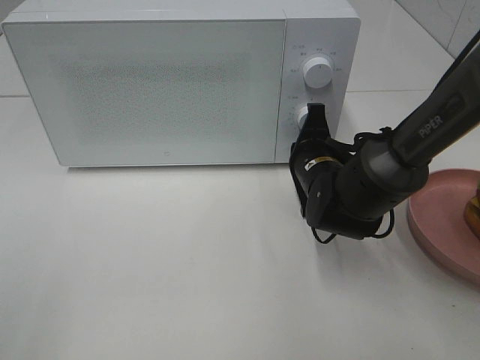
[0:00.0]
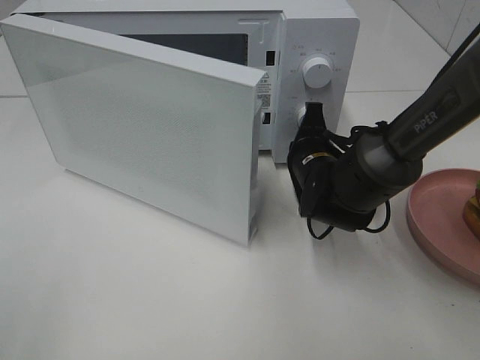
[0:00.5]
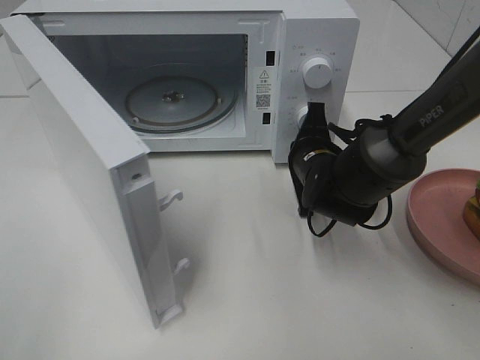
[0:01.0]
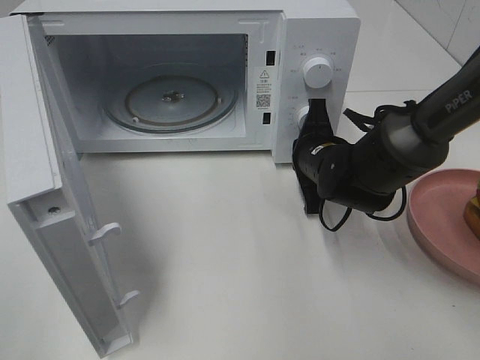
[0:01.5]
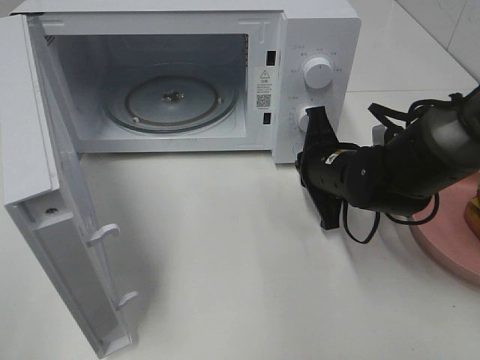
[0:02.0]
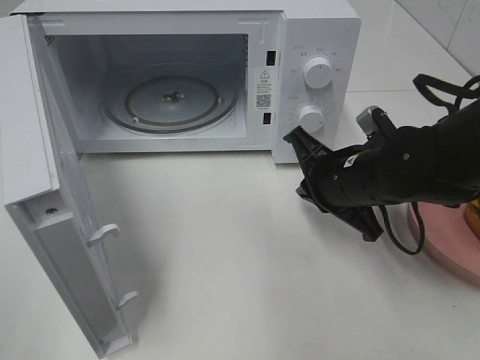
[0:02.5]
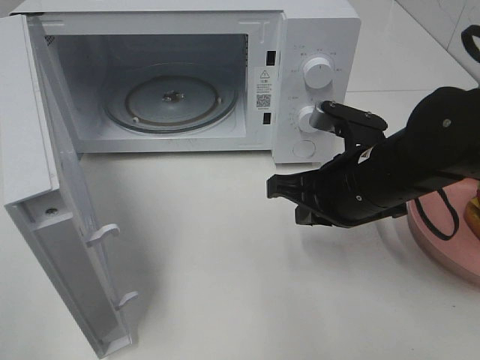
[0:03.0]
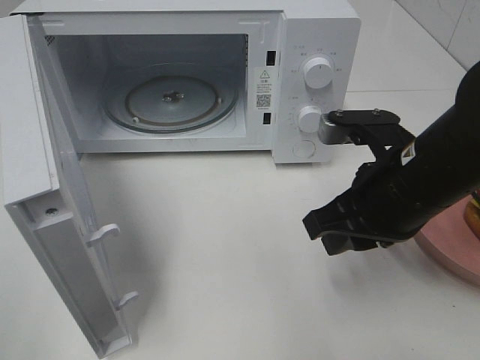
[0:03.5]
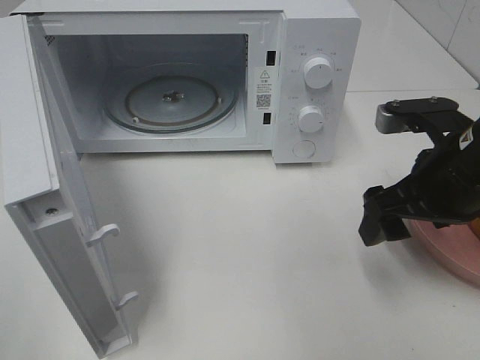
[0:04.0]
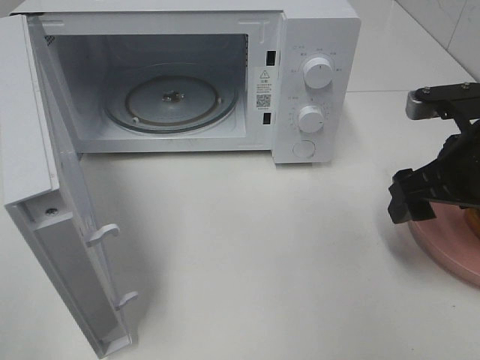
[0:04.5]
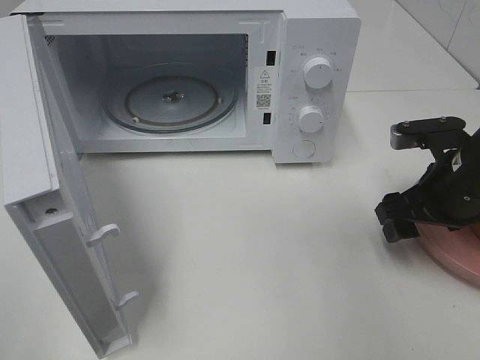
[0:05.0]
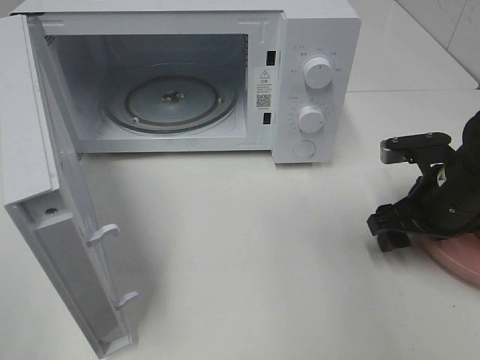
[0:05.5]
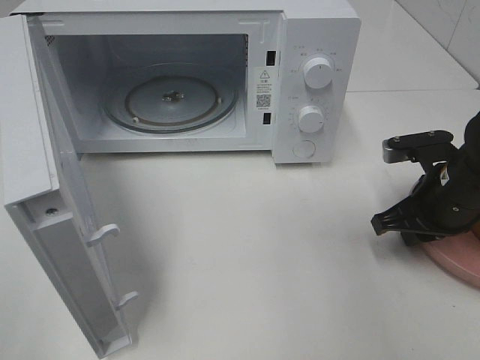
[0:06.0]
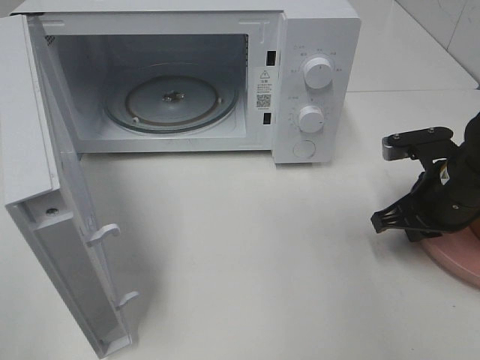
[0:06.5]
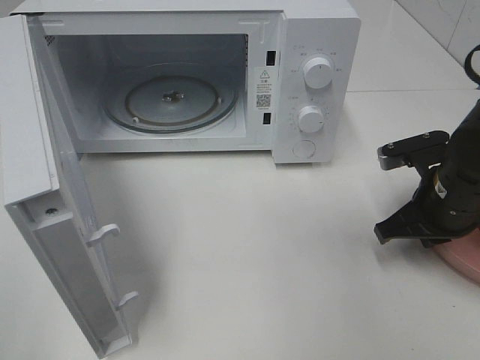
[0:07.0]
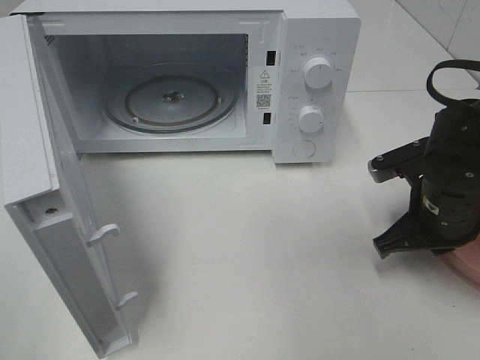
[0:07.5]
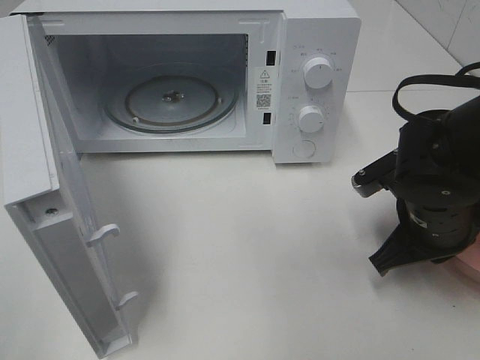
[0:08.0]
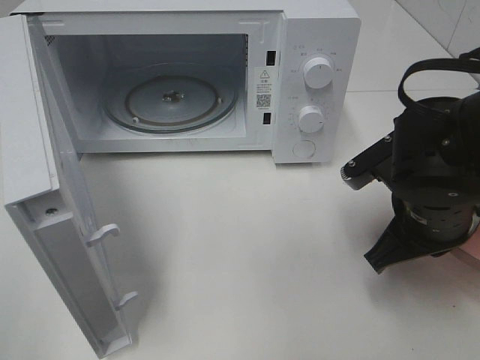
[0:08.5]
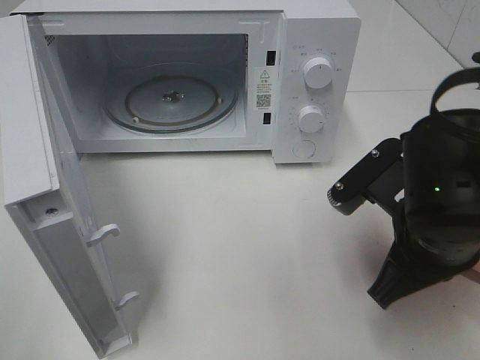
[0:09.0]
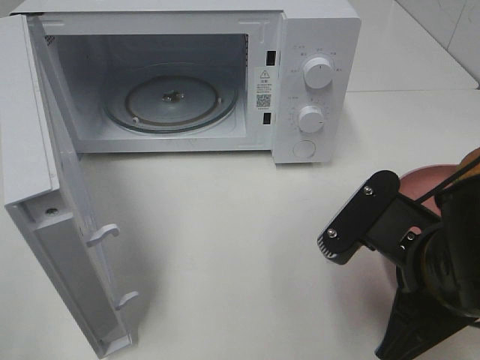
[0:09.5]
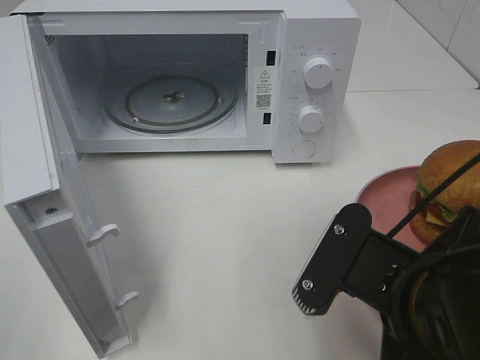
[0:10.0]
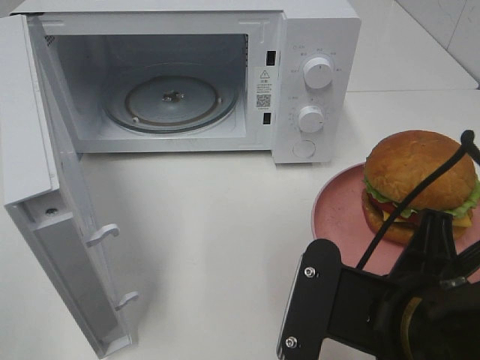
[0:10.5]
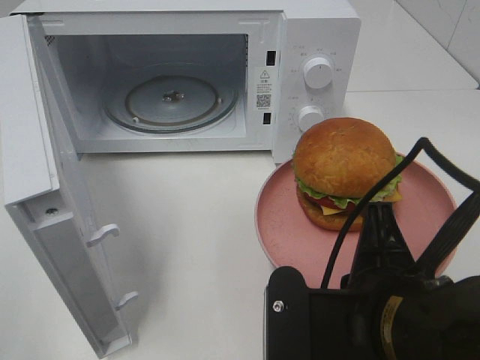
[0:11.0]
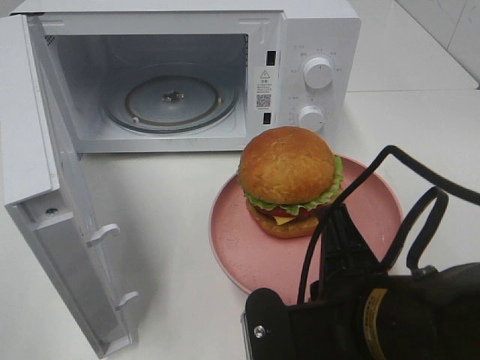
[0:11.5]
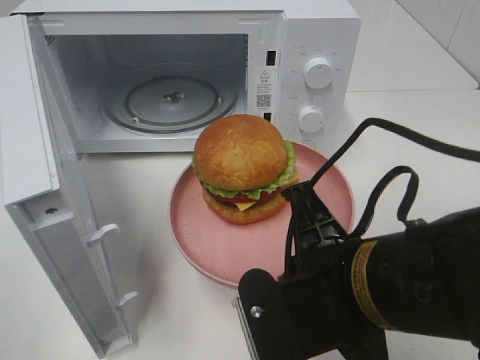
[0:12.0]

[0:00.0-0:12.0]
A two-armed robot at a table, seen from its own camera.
Task of the whole recording: Heat the burger.
Step, 0:02.0 to 0:06.5: Right hand: grab the plate with the hamburger.
0:02.0 to 0:04.0: The right gripper shifts approximately 15 cm upward, backward and to the right, and opens.
0:04.0 to 0:06.0: The right gripper moves downward, approximately 10 cm, and closes up.
0:06.0 to 0:08.0: The right gripper changes place by roughly 5 cm.
0:08.0 to 0:10.0: The right gripper heads backward, to the left and upward, covering approximately 15 cm.

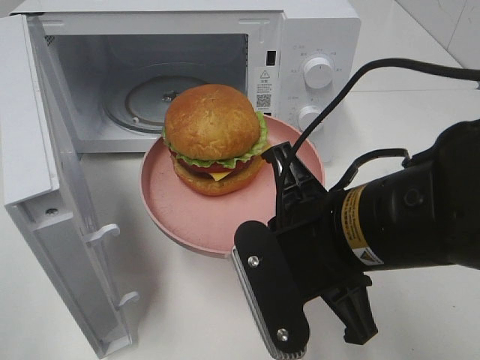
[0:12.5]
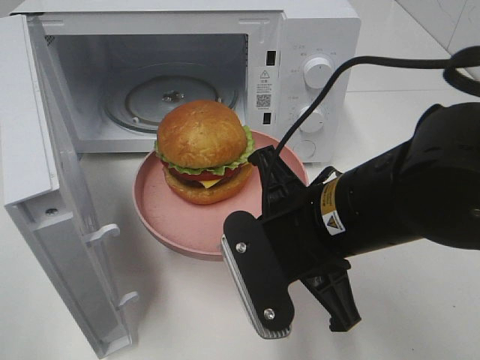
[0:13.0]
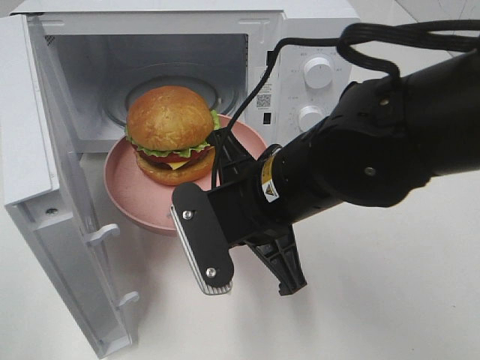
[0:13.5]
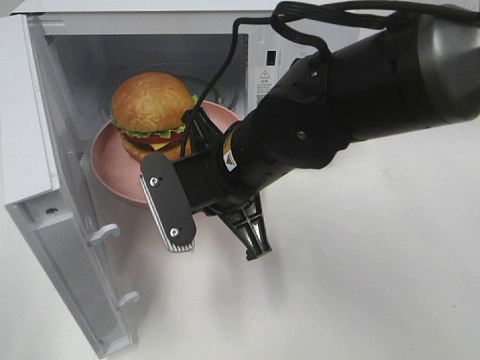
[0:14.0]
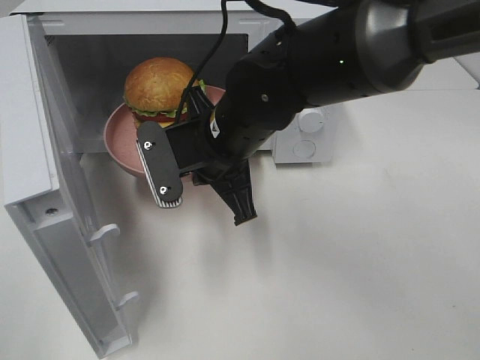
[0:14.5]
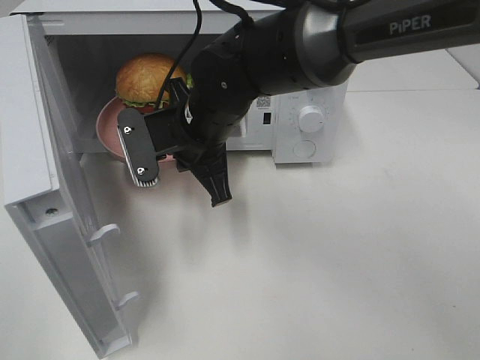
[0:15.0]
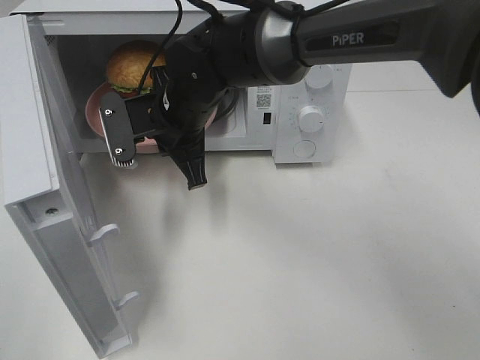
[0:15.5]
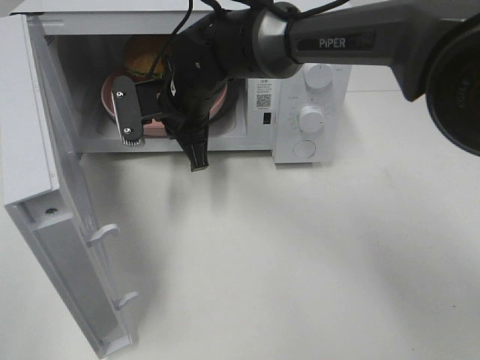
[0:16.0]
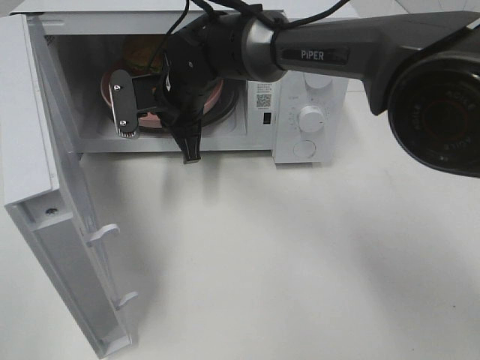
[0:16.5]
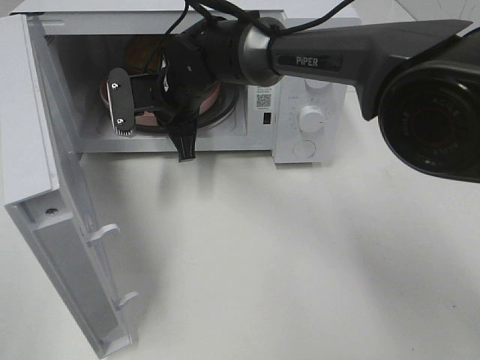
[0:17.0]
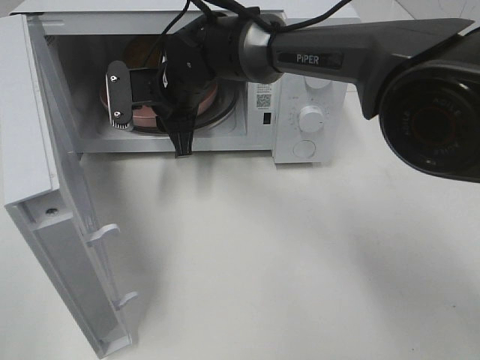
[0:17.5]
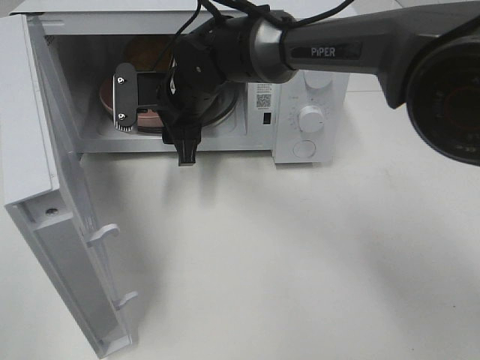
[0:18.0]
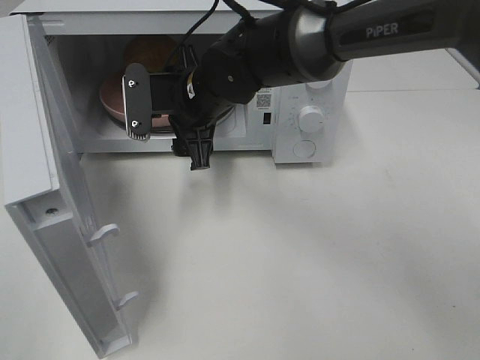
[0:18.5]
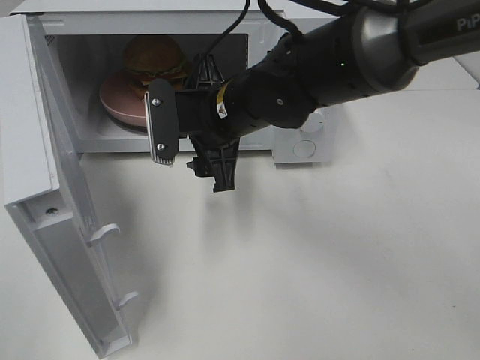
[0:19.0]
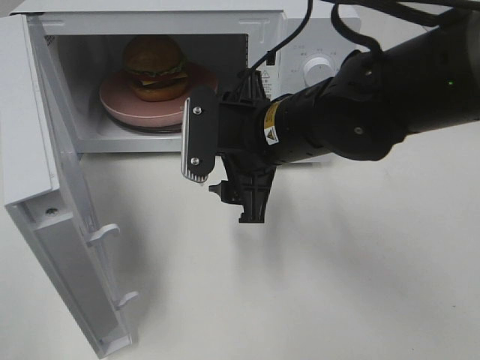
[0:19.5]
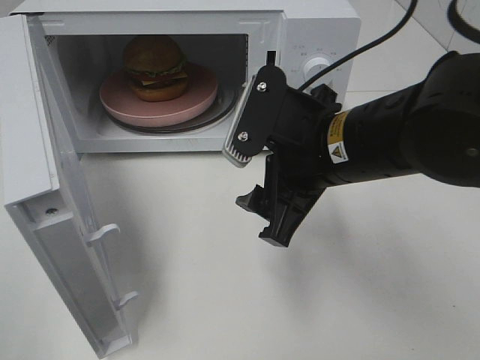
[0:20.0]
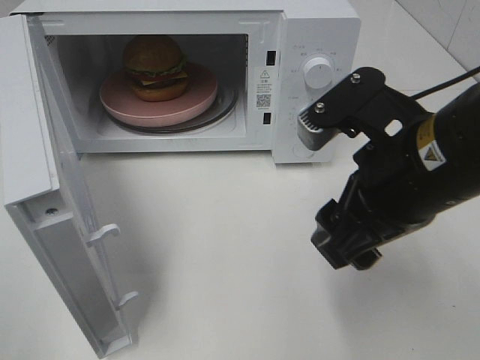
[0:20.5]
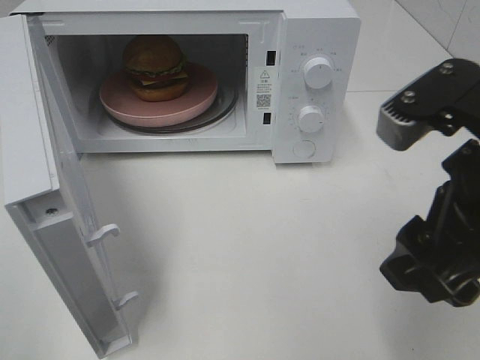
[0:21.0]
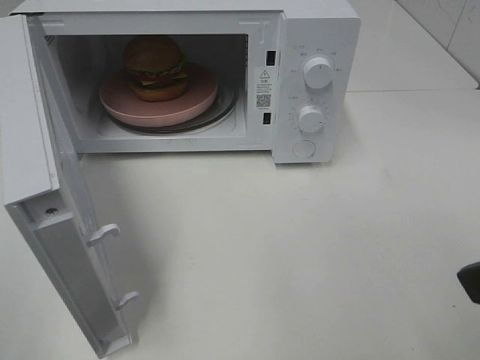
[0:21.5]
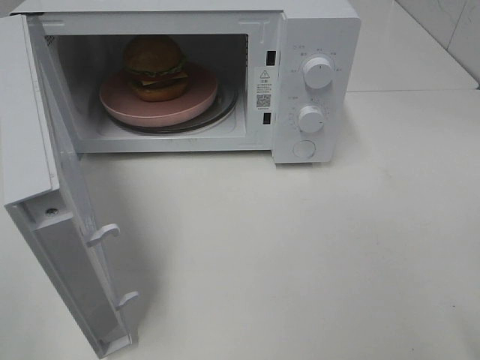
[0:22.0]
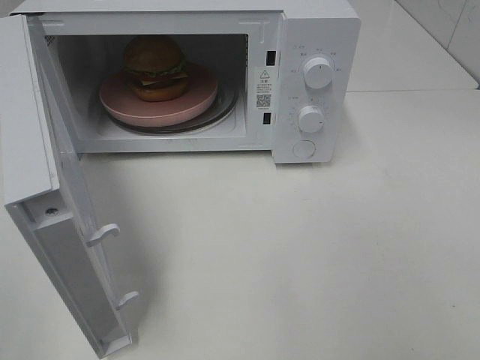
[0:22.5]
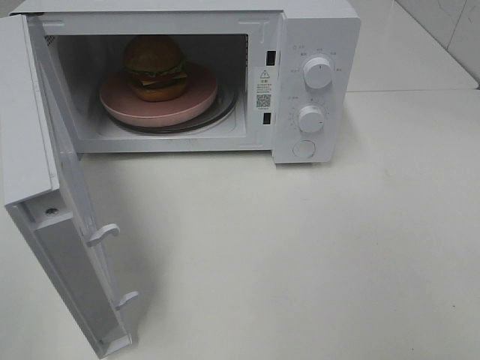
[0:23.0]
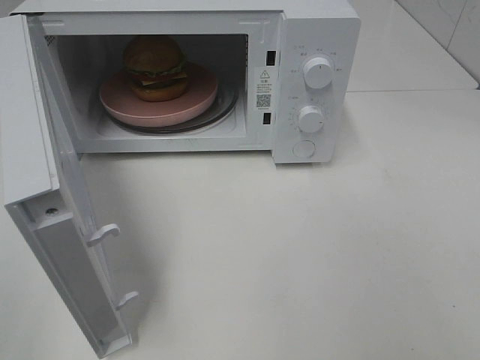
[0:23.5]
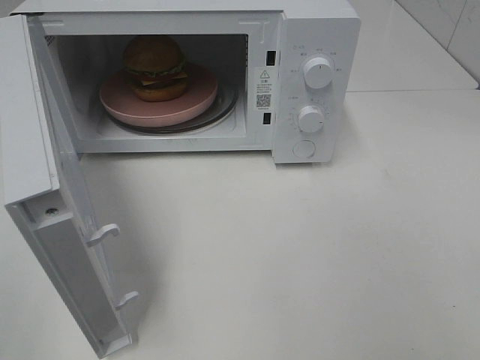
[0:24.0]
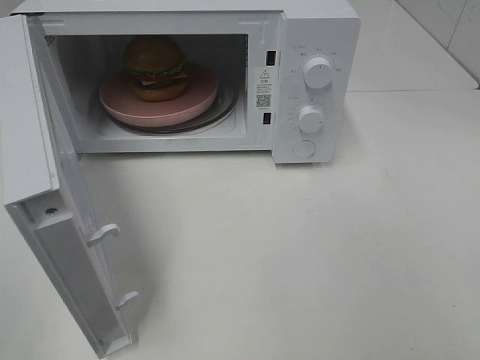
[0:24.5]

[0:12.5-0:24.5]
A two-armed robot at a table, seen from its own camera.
Task of the whole recording: Heat the burger.
Step, 0:12.5 to 0:17.0: Right hand: place the plate in the microwave.
0:12.5 to 0:14.5: The right gripper is displaced forward and to the left by approximately 15 cm.
0:14.5 to 0:16.5: The right gripper moves forward and to the left, some 15 cm.
0:16.5 to 0:18.5: The right gripper ends up about 5 cm from where it was, and opens.
0:18.5 to 0:20.5: The right gripper goes roughly 25 cm backward and to the right.
0:20.5 to 0:22.5: The right gripper travels backward and to the right by some 20 cm.

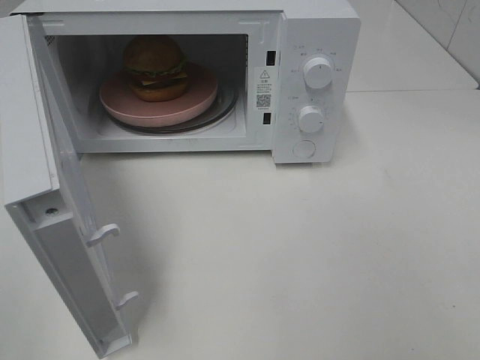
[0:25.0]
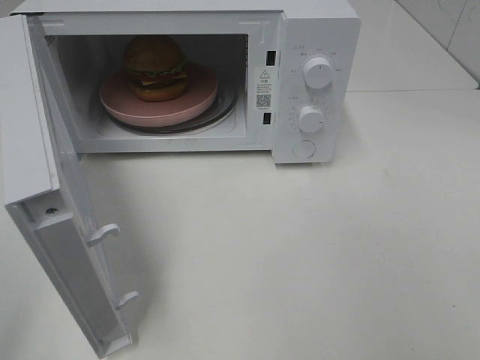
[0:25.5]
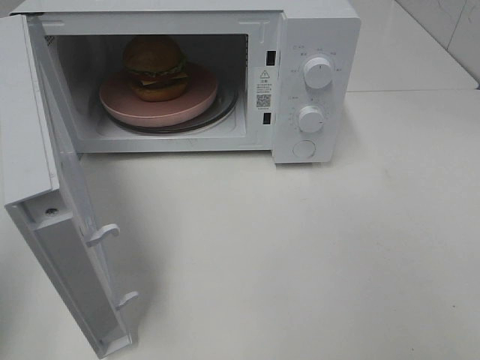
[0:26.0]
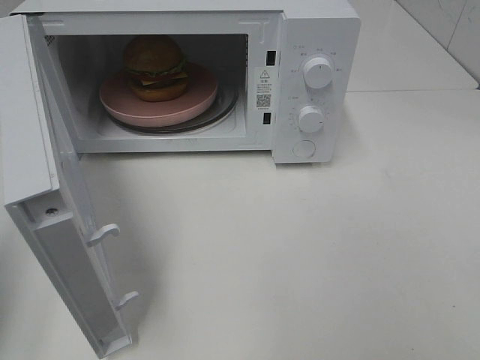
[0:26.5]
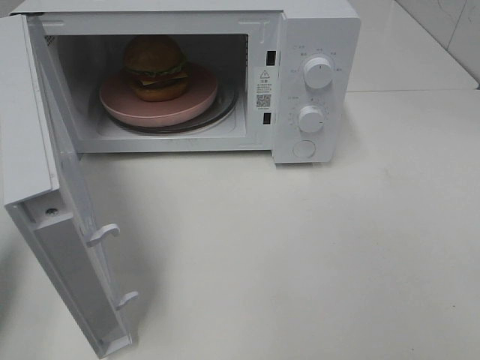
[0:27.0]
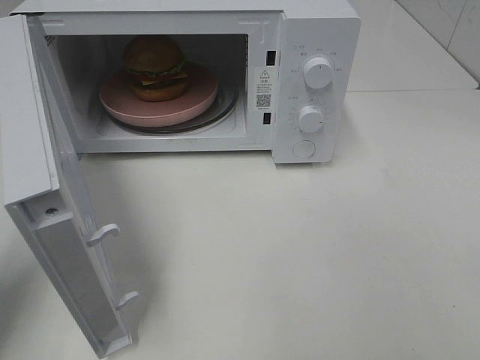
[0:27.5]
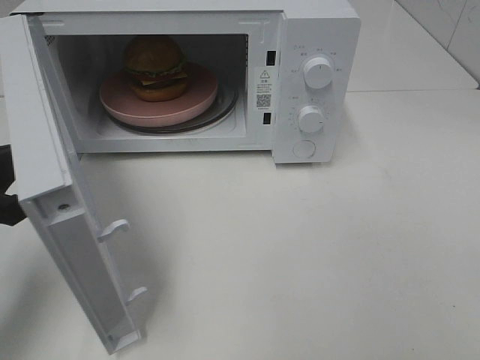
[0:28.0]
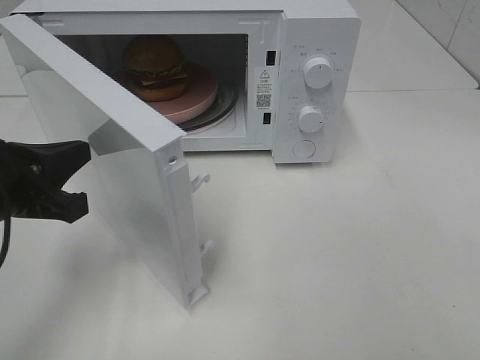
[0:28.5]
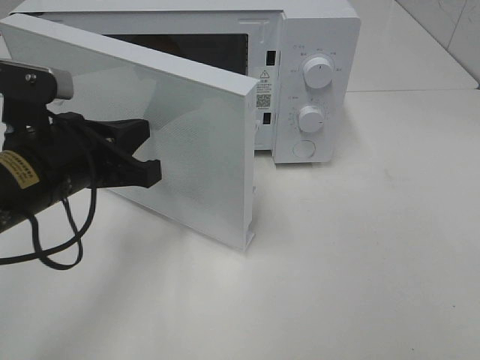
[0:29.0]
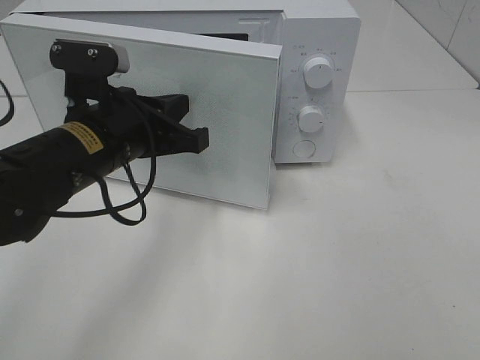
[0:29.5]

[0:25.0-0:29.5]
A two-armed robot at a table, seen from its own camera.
Task of the whole recording: Heat the burger.
0:25.0 to 0:27.0: The left gripper moves forward and downward, roughly 20 cm, and closes up.
0:27.0 to 0:29.5: The left gripper moves to the right and forward, about 25 cm.
